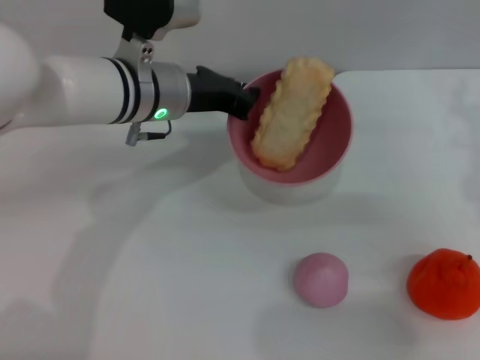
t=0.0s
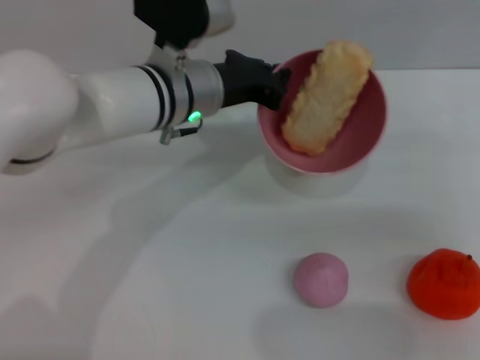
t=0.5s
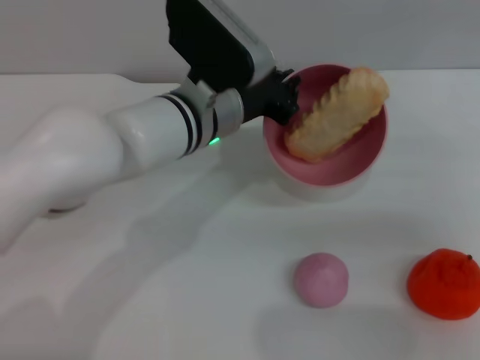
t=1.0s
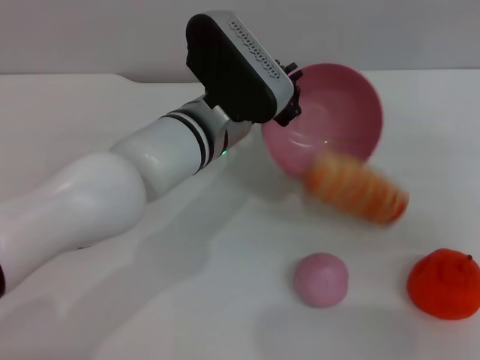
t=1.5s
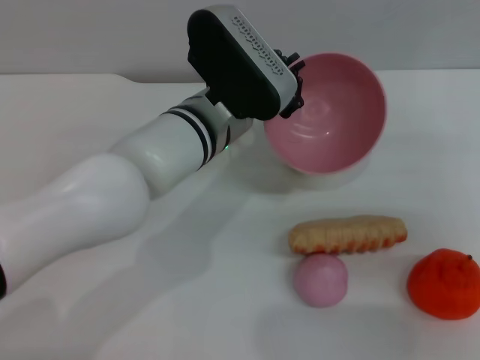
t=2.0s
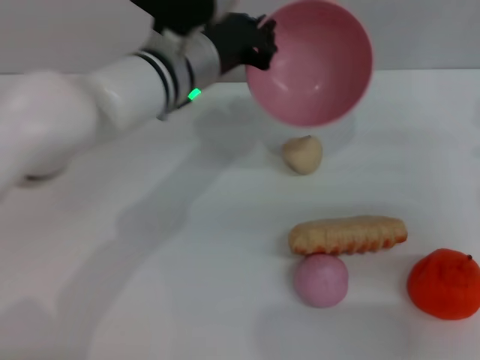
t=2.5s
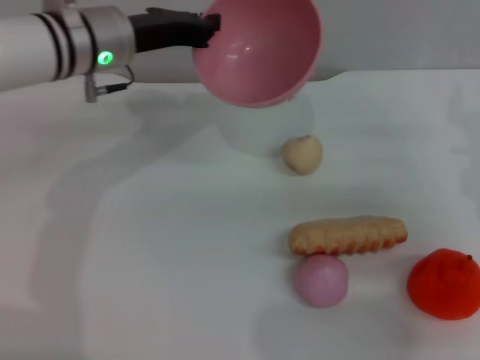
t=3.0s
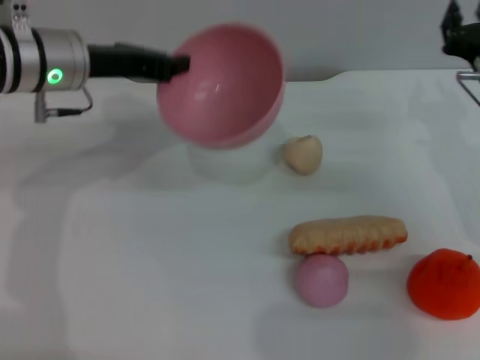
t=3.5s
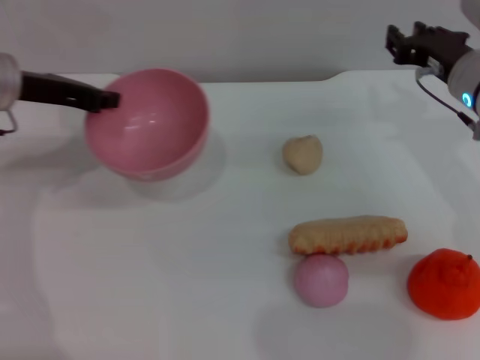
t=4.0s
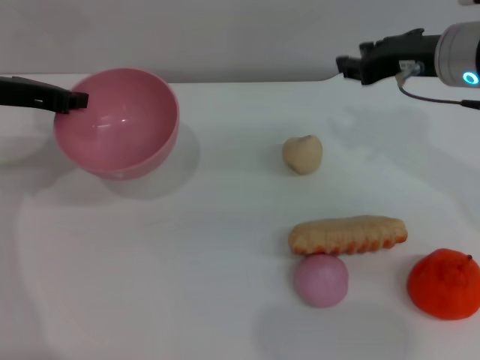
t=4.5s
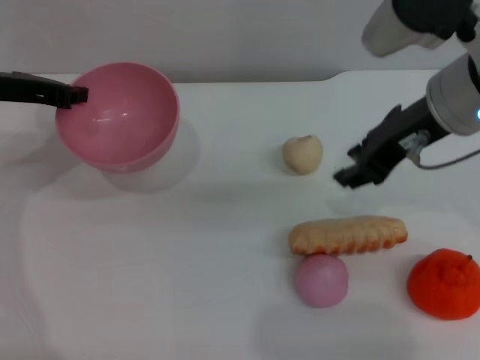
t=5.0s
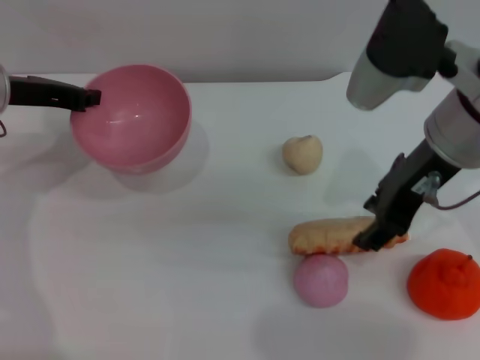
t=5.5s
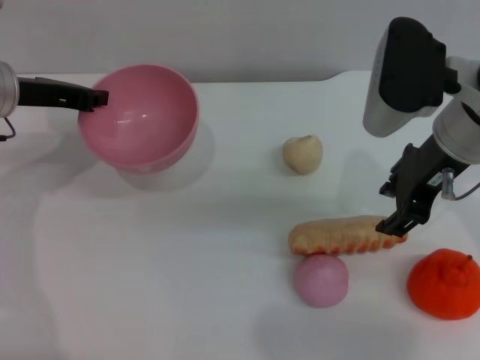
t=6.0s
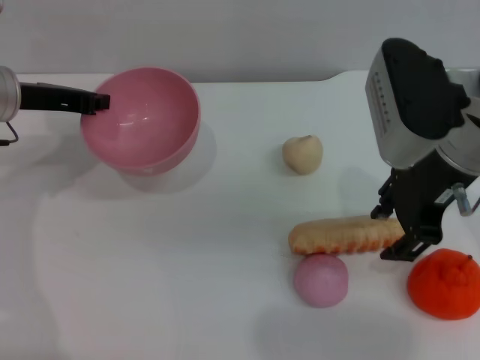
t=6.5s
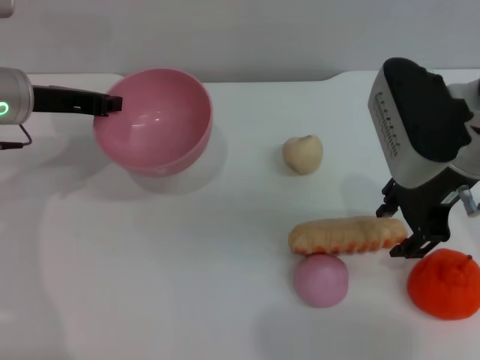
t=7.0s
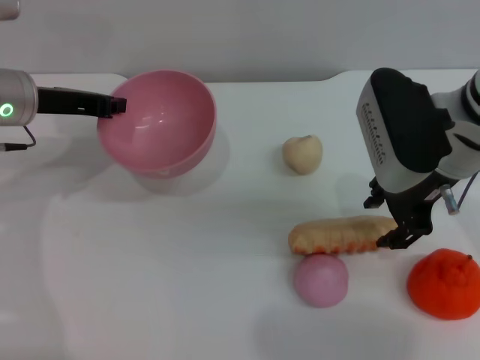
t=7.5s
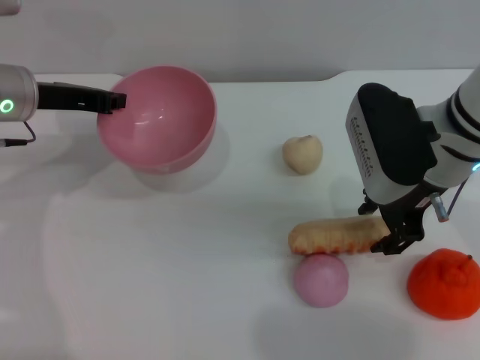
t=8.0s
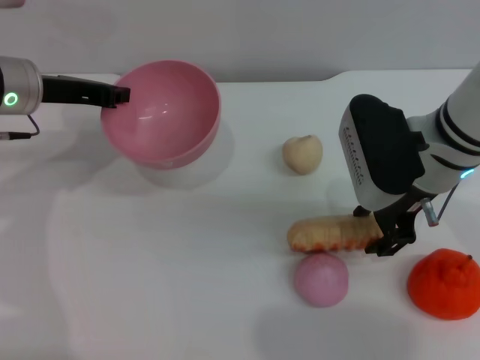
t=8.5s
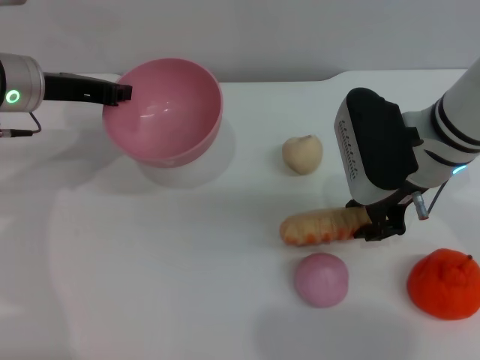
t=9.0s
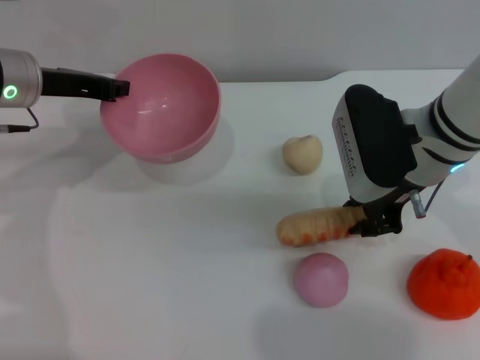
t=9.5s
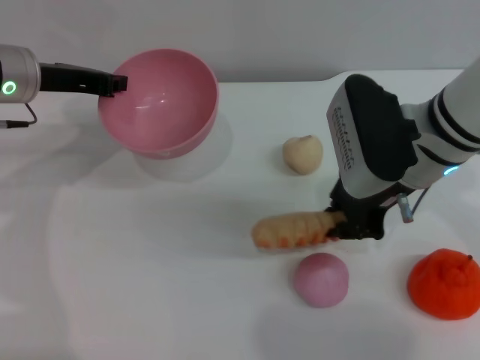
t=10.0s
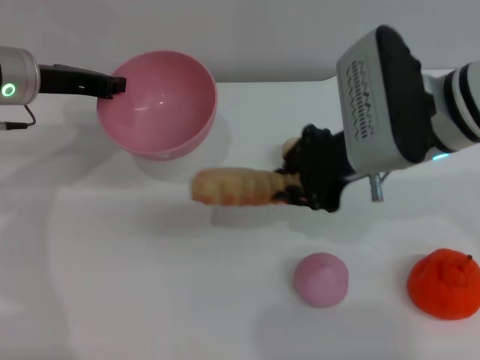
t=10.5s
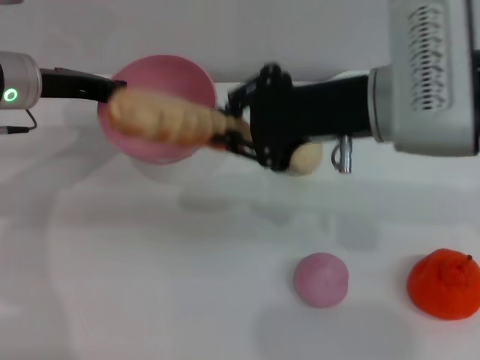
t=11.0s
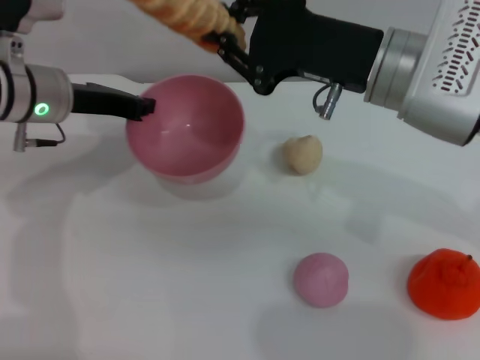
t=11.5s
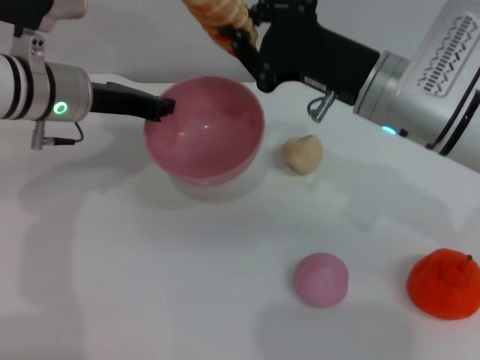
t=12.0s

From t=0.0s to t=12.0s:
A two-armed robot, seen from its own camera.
Task of the whole recording: put the bread into the pink bowl and pour it out repeatedly.
Step, from t=0.0s to t=2.0s: Pour the bread out of the bowl.
Step, from t=2.5s to t=10.5s: Pick up the bread with the right gripper.
From t=0.0s to t=2.0s: The left gripper shifts some 5 cm to the right.
From t=2.0s to t=4.0s: The right gripper is displaced to the left and forward by approximately 10 cm. Meanwhile the left gripper shifts about 25 cm to the left.
From t=4.0s to t=6.0s: The right gripper shifts some 10 cm upward and to the left.
From t=8.0s to t=10.0s: The right gripper closes up.

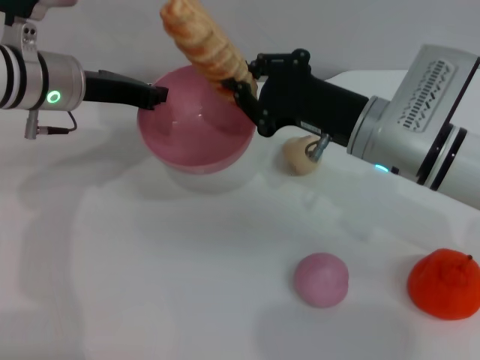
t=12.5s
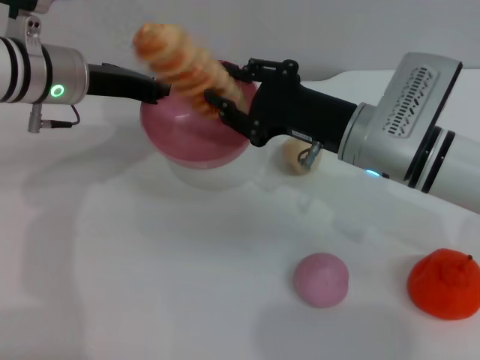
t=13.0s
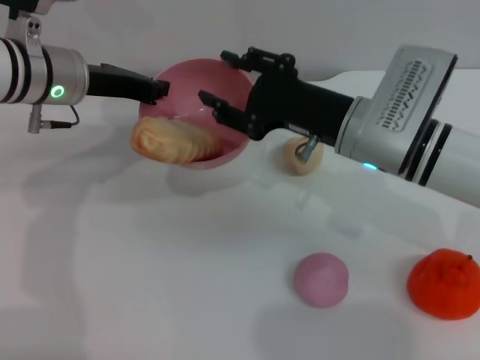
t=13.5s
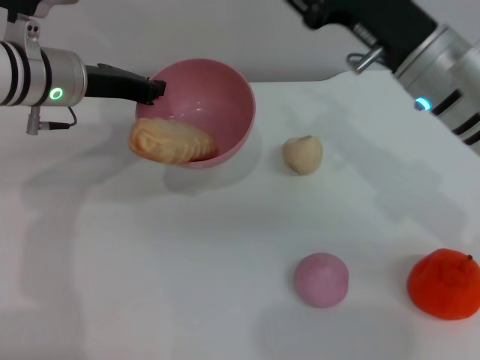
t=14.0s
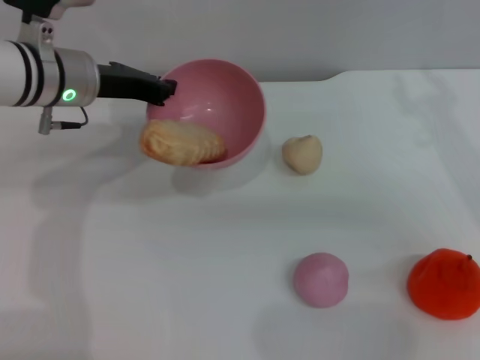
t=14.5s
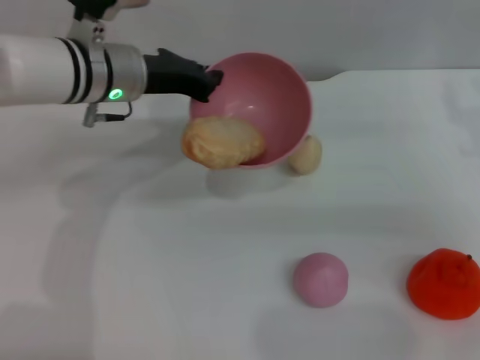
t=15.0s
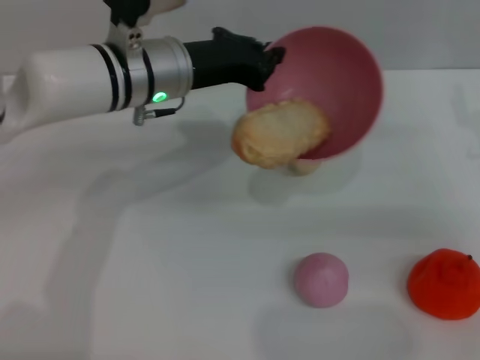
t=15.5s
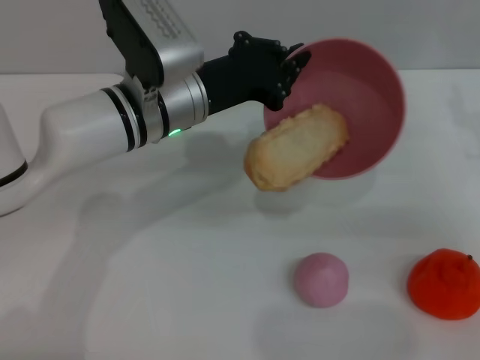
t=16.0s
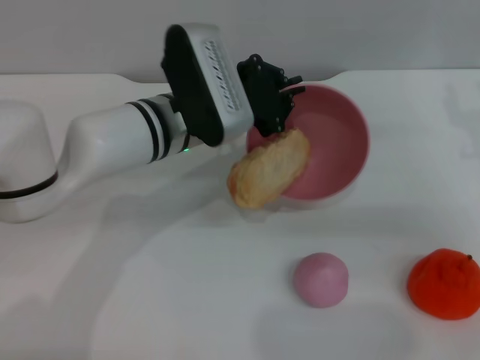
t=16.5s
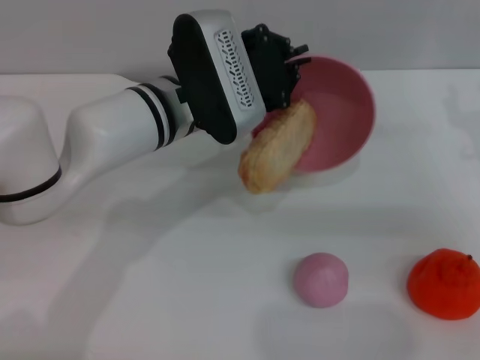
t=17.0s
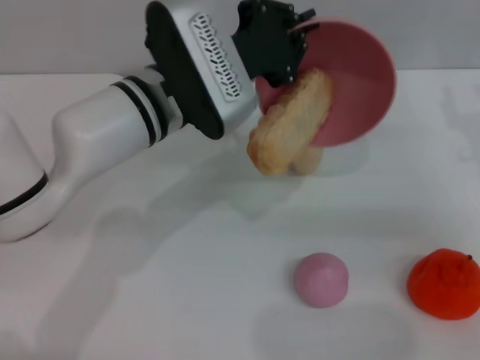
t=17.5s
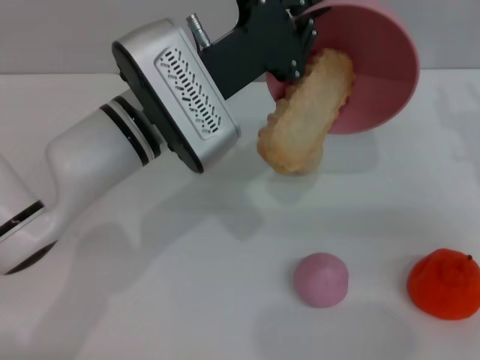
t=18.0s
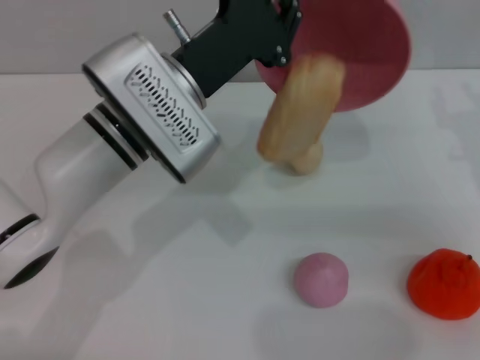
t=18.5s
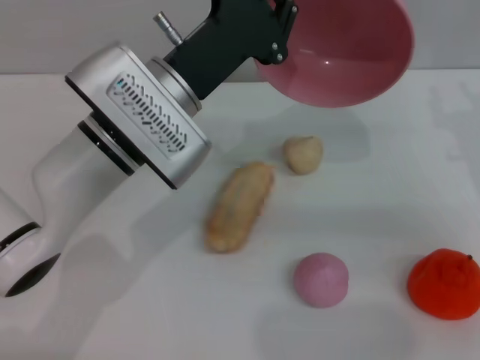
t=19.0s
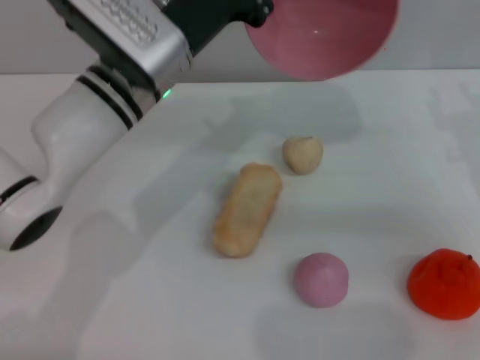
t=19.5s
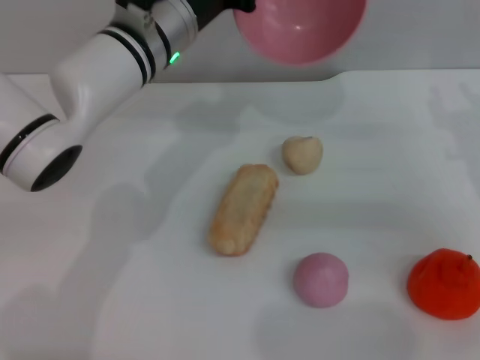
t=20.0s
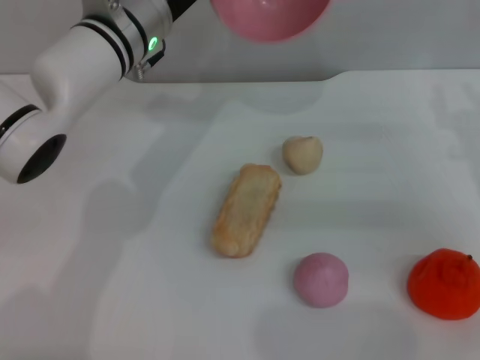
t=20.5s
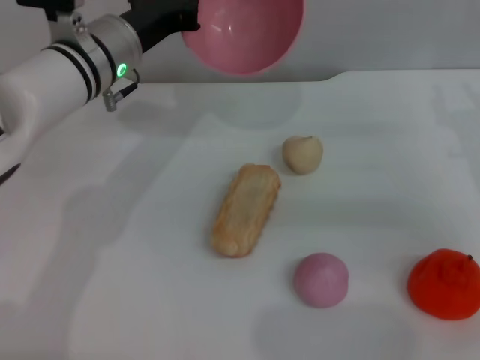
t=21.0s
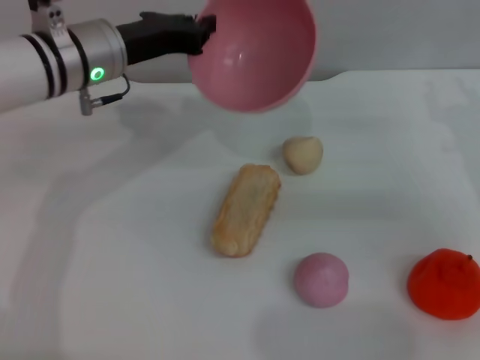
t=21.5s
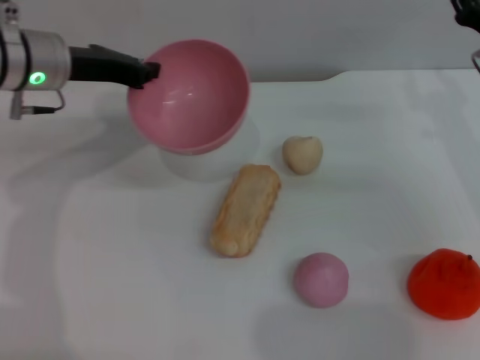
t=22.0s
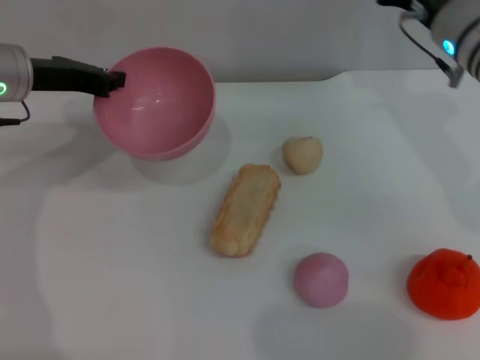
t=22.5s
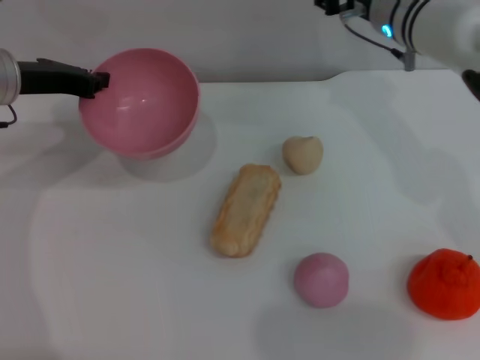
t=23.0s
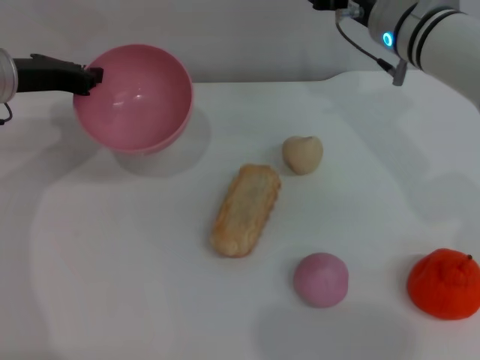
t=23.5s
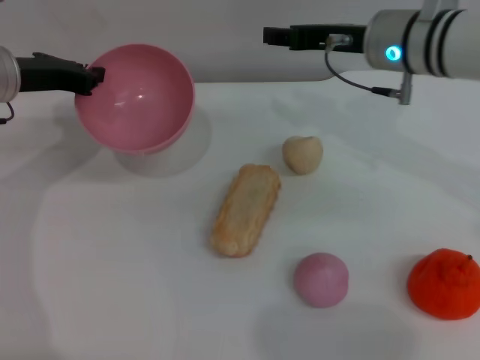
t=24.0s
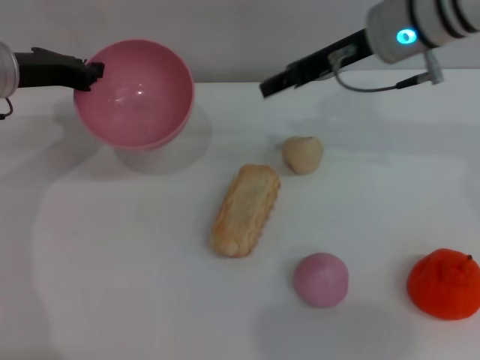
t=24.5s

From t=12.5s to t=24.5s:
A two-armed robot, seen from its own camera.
Task of the whole recording: put the bread into the pink bowl and pour it out repeatedly.
Step, from t=13.5s to t=19.0s: Pour the bread out of the bowl.
From t=12.5s to t=14.5s: The right gripper shifts about 10 cm to the right, and opens its fingers.
From t=14.5s to t=16.5s: The right gripper changes place by some 5 cm, while the left gripper shifts approximately 10 cm to the right.
From t=16.5s to t=18.5s: The left gripper shifts by roughly 5 cm.
From t=18.5s to t=20.5s: The left gripper moves forward, roughly 10 cm.
From t=20.5s to t=22.5s: The right gripper moves forward and to the left, about 15 cm. The left gripper is displaced to the left by roughly 15 cm.
From t=22.5s to t=24.5s: The right gripper goes some 10 cm to the left and upward.

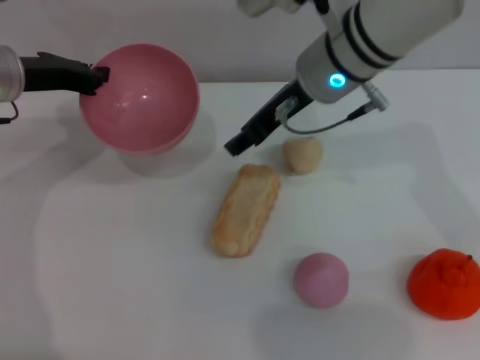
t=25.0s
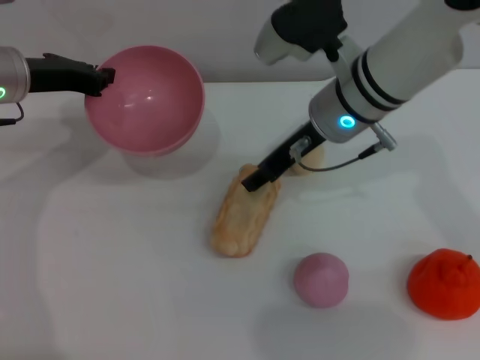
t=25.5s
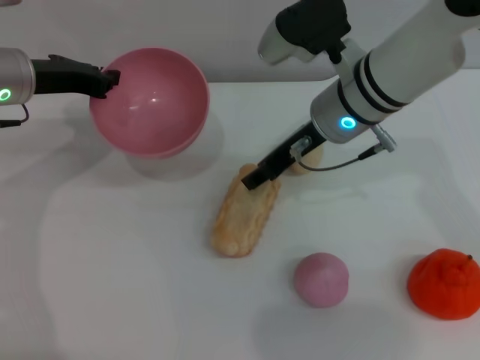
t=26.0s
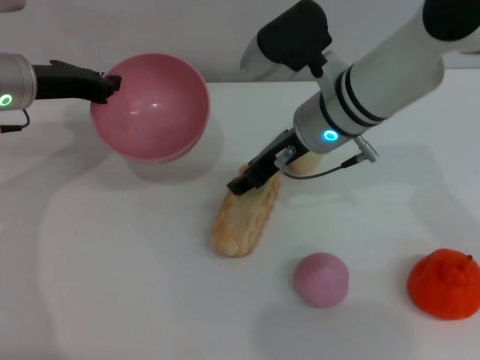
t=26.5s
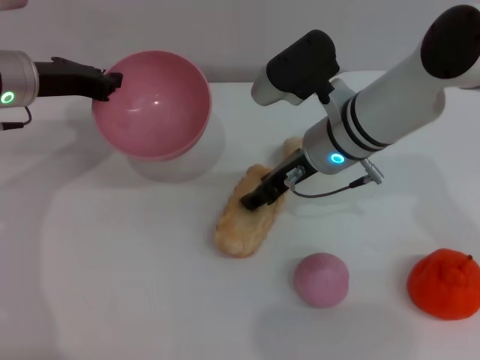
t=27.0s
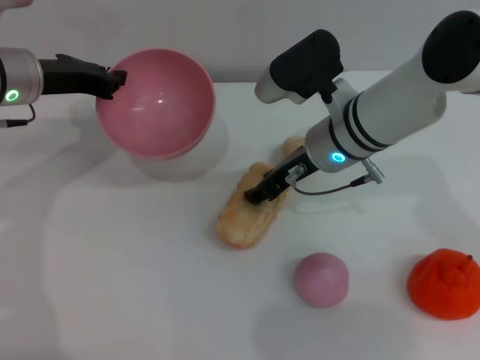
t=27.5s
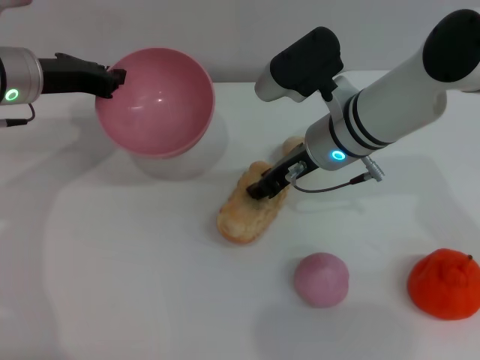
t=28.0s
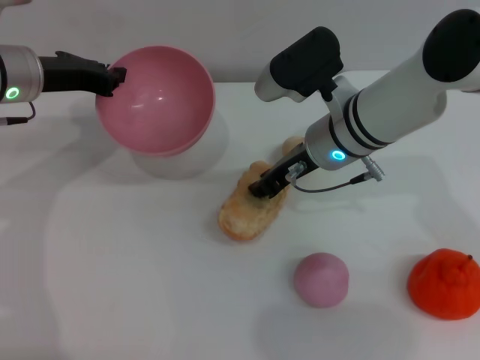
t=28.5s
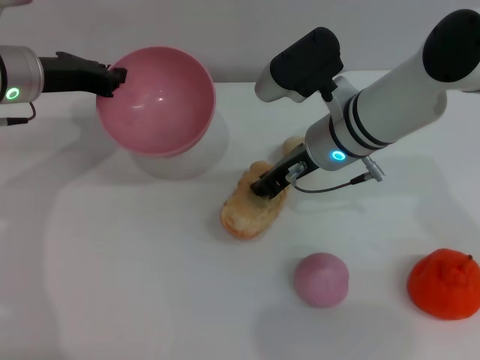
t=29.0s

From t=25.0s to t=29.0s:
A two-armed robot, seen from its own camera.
Task of the whole recording: put the bread into the pink bowl and pour it out repeatedly.
From t=25.0s to t=27.0s: The right gripper moves downward, roughly 10 cm.
From t=27.0s to t=29.0s: The right gripper closes up.
